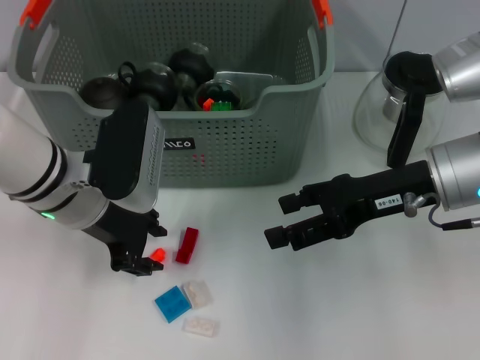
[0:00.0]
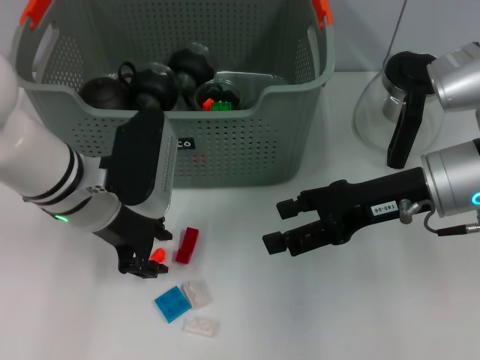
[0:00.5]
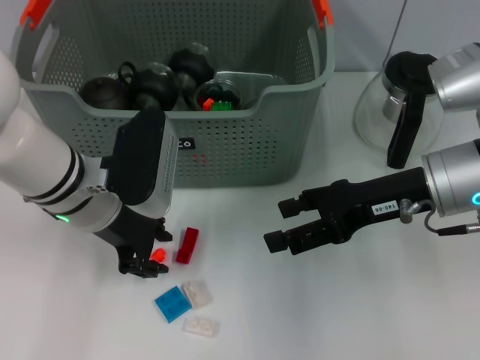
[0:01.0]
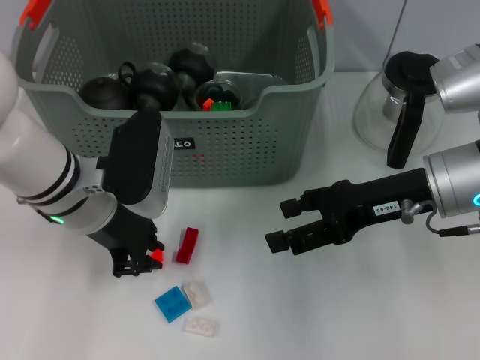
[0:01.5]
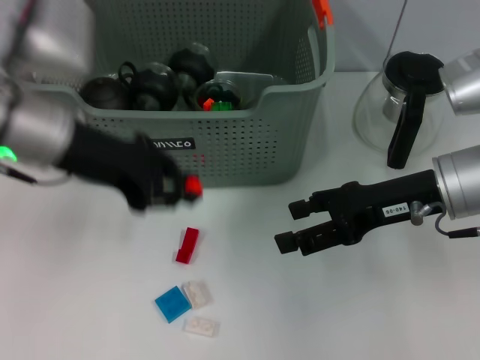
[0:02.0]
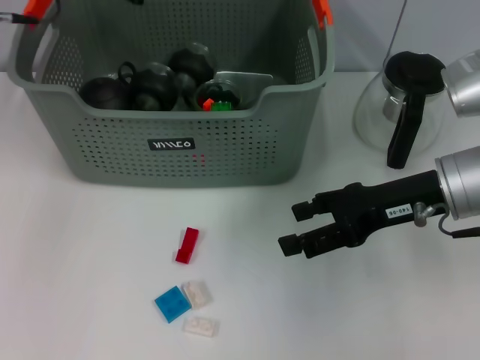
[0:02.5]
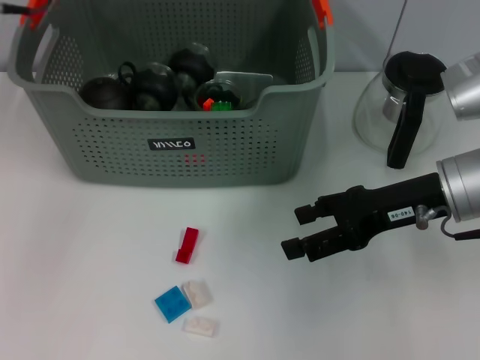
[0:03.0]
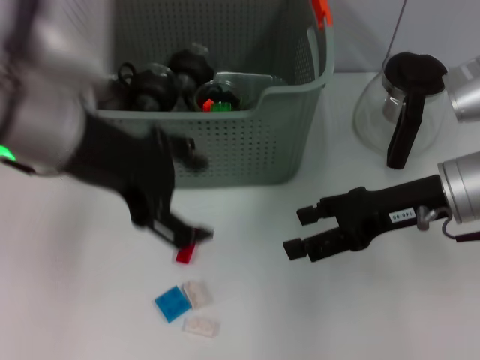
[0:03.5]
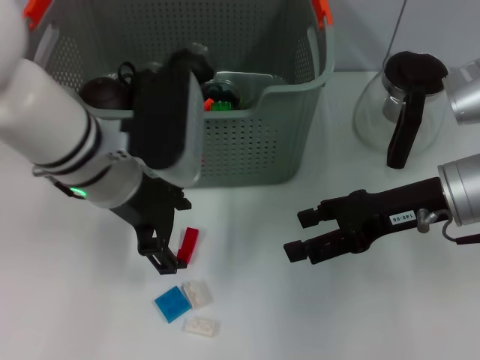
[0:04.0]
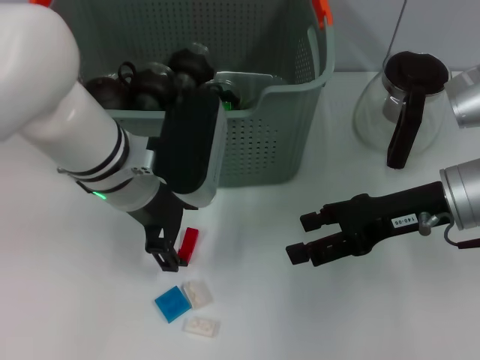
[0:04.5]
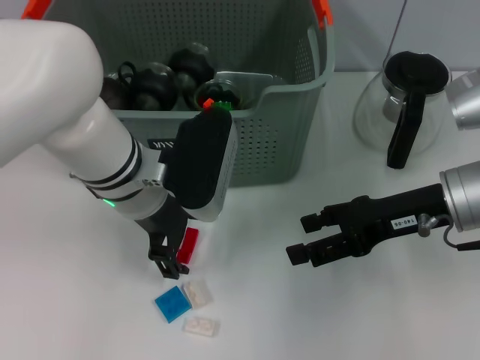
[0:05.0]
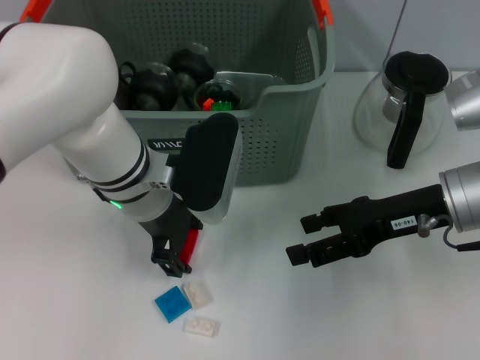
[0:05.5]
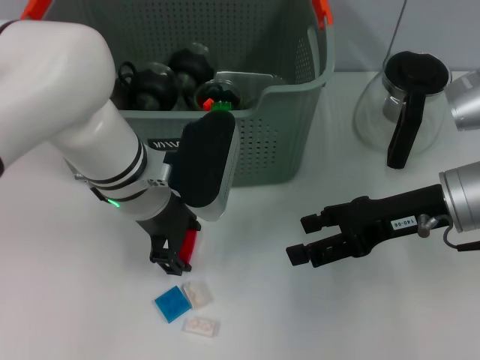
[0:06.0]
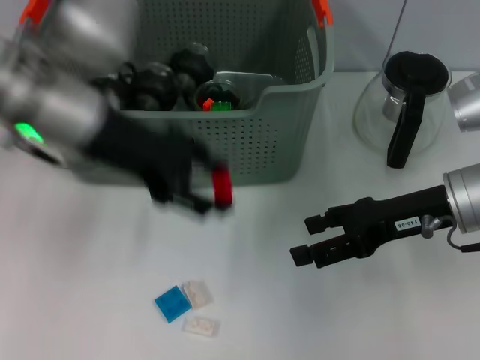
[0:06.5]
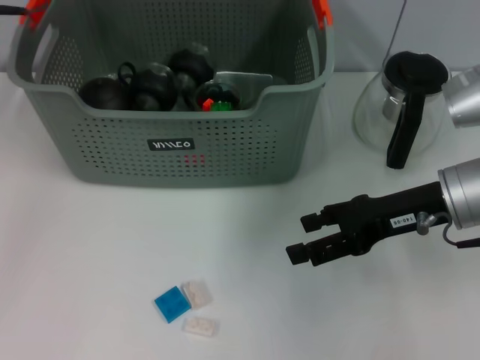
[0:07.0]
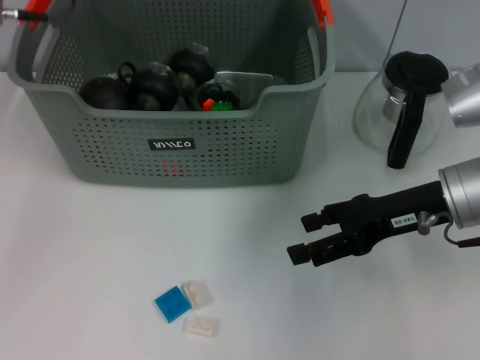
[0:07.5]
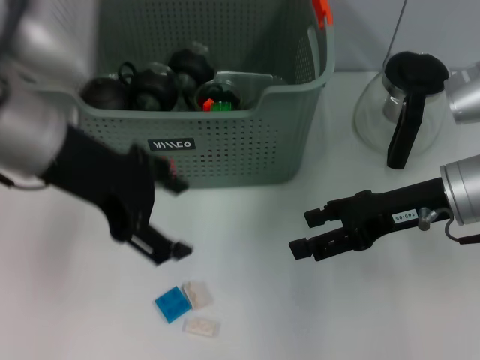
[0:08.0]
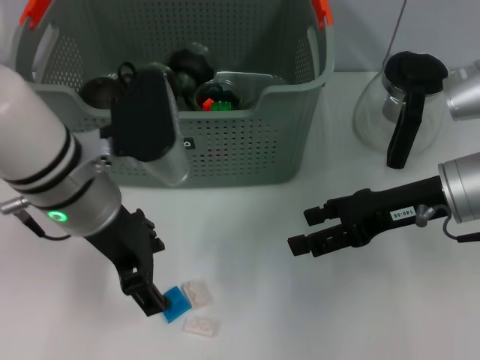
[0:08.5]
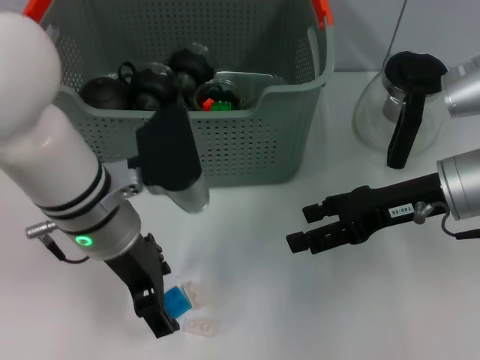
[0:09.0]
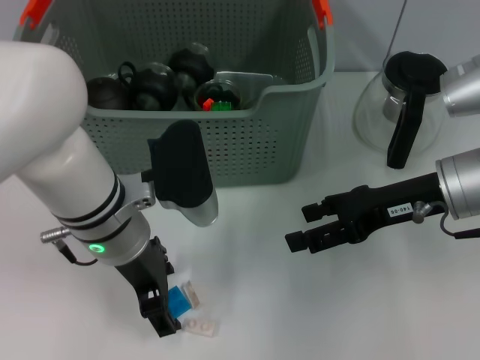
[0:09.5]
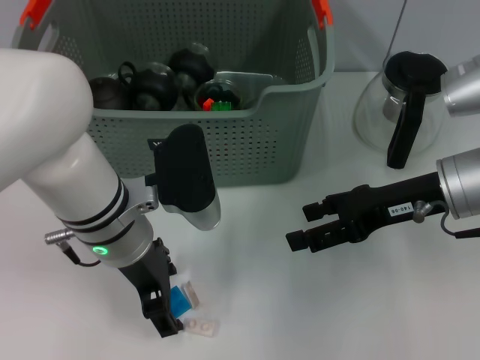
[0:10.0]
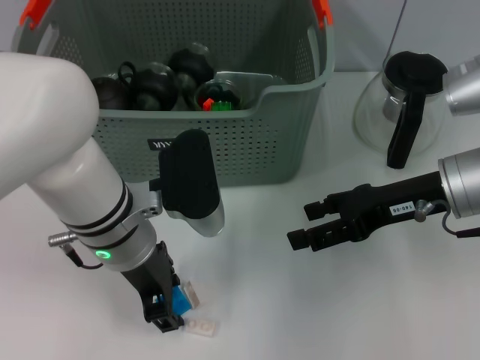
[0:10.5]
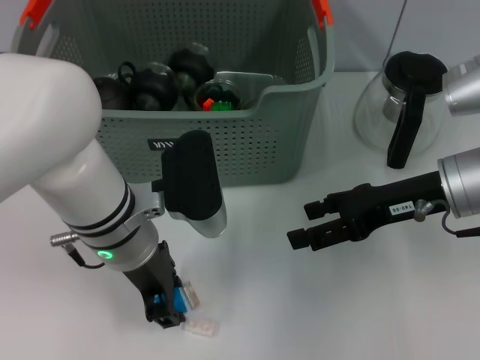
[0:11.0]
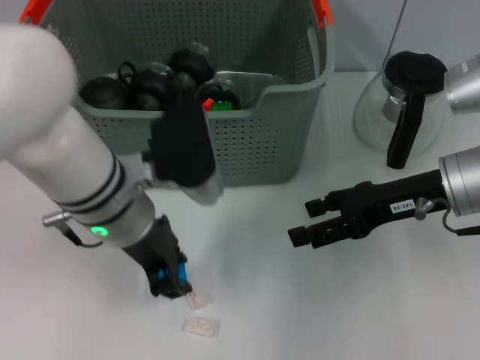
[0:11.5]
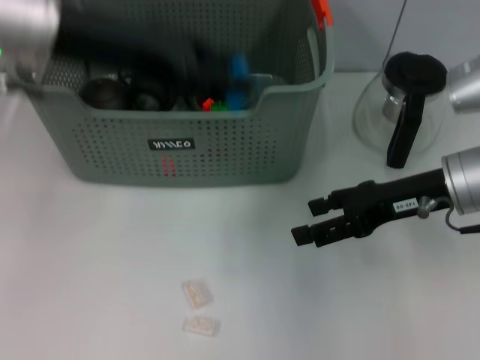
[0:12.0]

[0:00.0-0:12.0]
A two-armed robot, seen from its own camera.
Task of the whole recording: pick up the teacup on the table and place it into the storage bin, pick up the block on the table and place it into the storage bin.
Step, 0:02.0 to 0:02.5: Place the orange block in the storage box with left gripper.
Step, 0:03.0 to 0:05.5: Grasp the red block with left gripper.
Step, 0:06.0 to 0:07.0: Place the red block in the storage box with left gripper.
Step, 0:07.5 to 0:11.0: Grasp the dark blue block with left gripper.
0:00.0 to 0:02.0: The left gripper goes some 5 cm upward, and closes.
0:02.0 to 0:04.0: The left gripper travels to the right by some 5 cm, goes forward and returns, roughly 10 cm each way, and opens its fingers.
0:04.0 to 0:06.0: The left gripper moves roughly 5 cm.
0:06.0 to 0:08.0: The left gripper shifts approximately 15 cm upward and to the left.
0:08.0 to 0:10.0: The left gripper is displaced downward and to the right by approximately 15 cm.
0:10.0 to 0:12.0: The left gripper moves upward, some 15 cm, and closes its fingers.

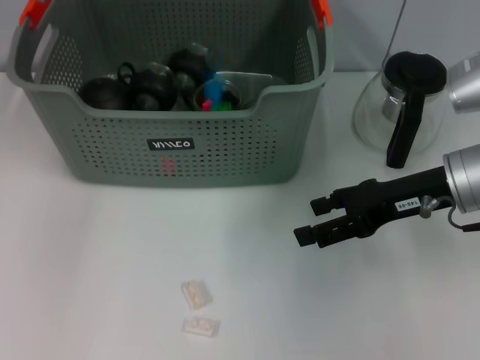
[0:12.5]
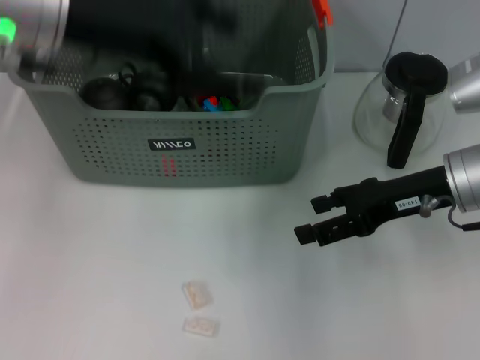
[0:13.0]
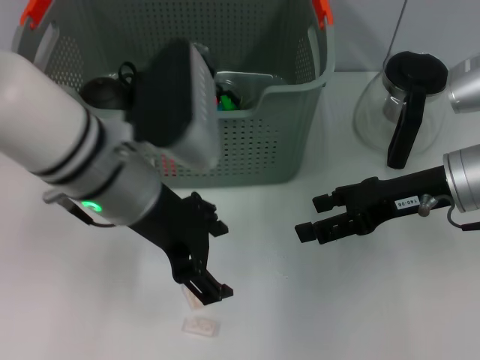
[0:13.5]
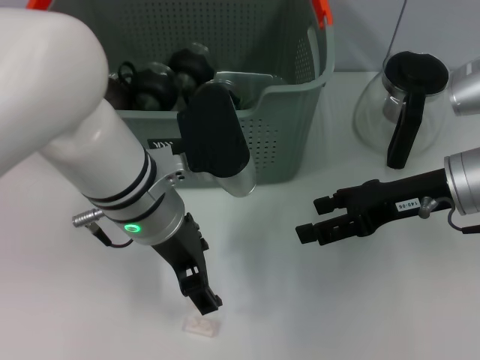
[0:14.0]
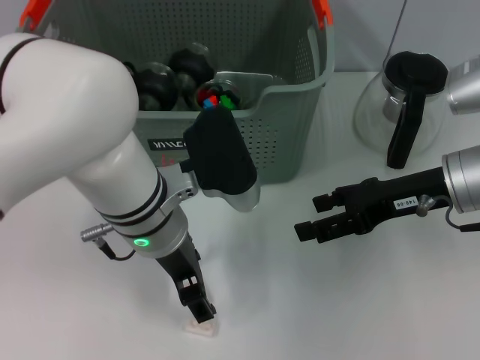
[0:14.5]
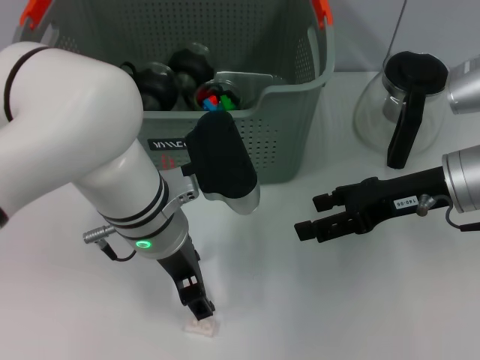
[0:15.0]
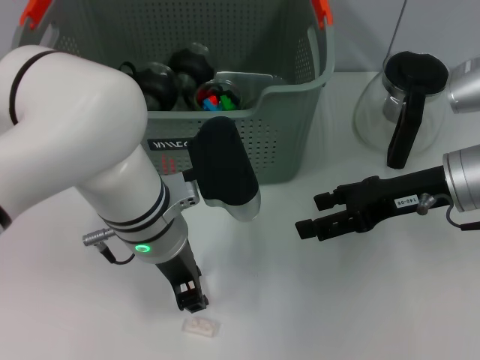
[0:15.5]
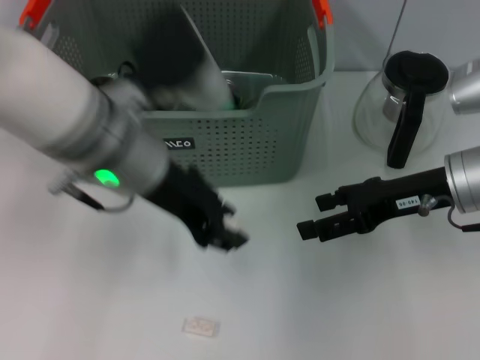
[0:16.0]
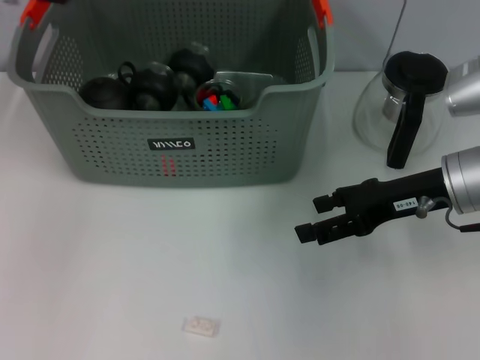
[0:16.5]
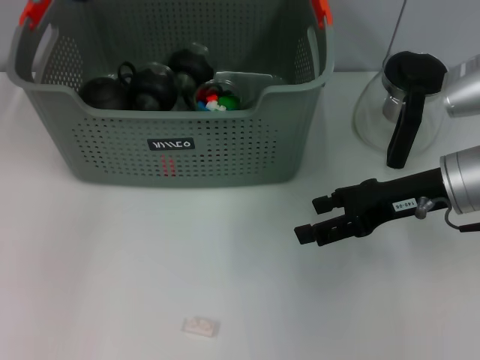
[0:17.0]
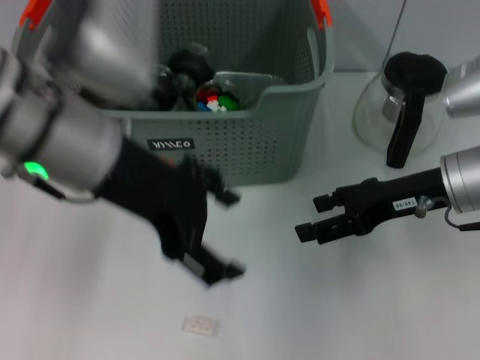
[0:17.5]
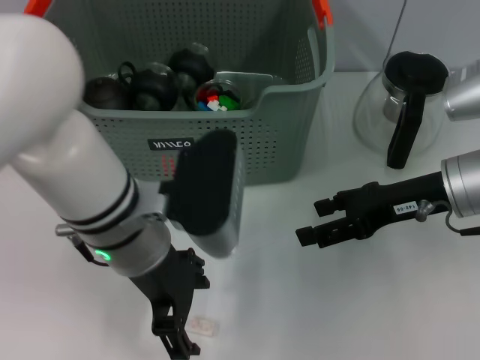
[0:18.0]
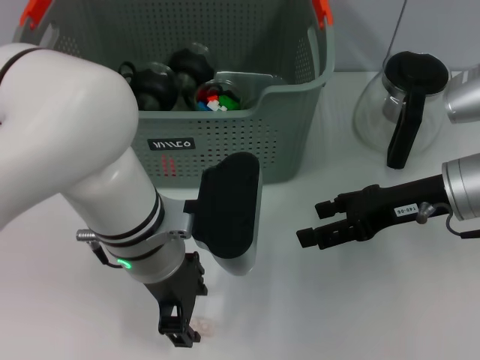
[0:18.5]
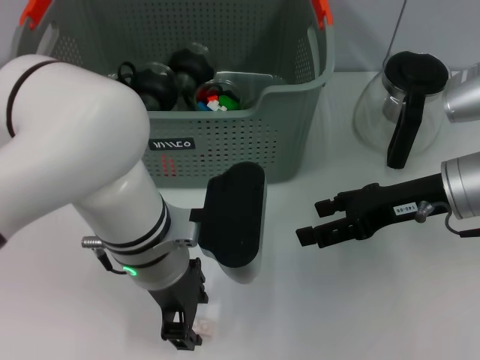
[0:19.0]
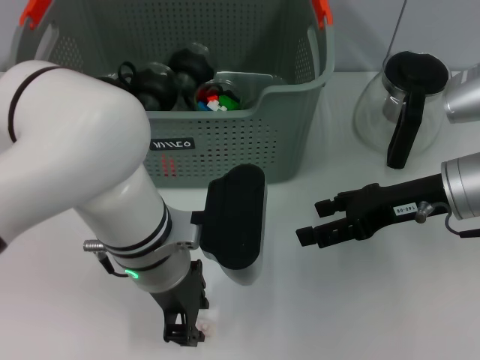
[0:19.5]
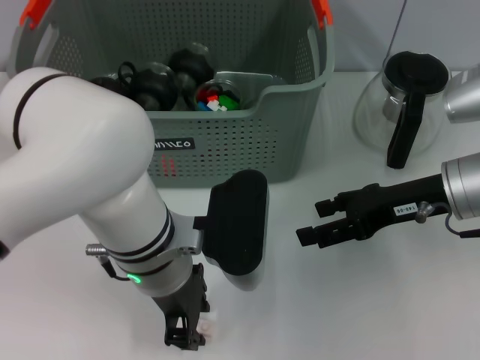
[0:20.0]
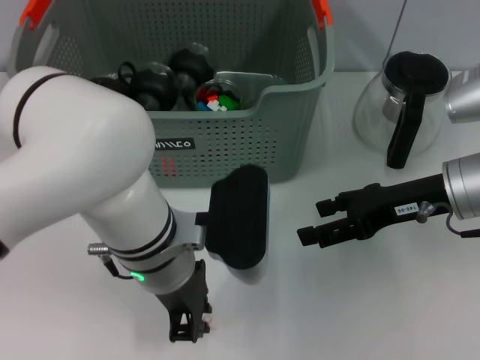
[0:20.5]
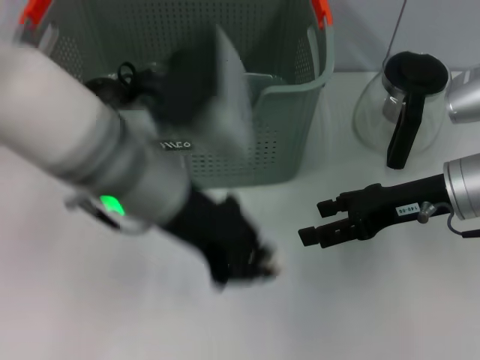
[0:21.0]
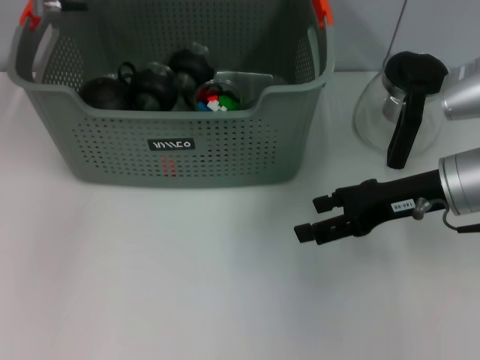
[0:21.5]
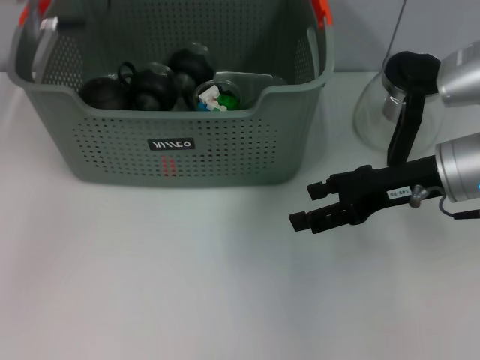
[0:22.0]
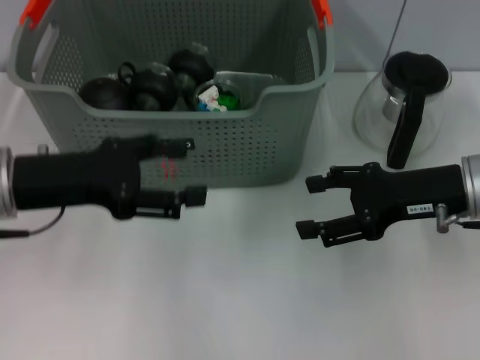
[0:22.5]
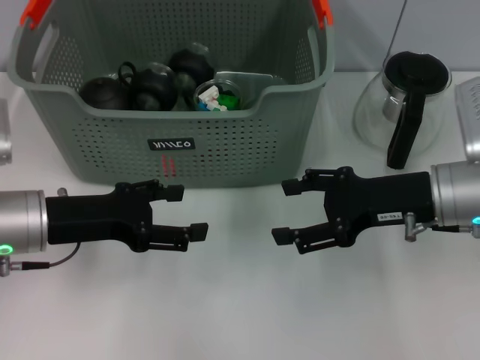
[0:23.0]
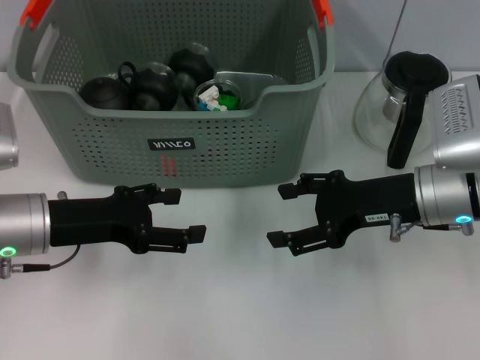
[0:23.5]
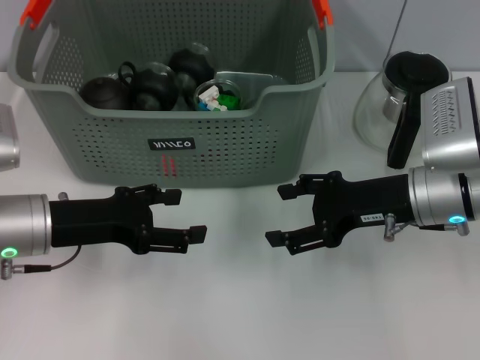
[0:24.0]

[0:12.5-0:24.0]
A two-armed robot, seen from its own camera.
Task of the whole recording: pick up the teacup on the table and place it into the storage bin, pick up the block on the table and place it into the storage bin.
Step, 0:13.0 to 0:15.5: Grasp the white block with left gripper.
Step, 0:16.0 to 0:16.5: Place the white block in the storage box with left gripper.
Step, 0:17.5 to 0:20.0: Grasp the white block with left gripper.
Step, 0:20.5 to 0:21.5: Place the white block in the storage box with left gripper.
0:12.5 to 0:14.5: The left gripper goes about 20 cm downward, backward and to the right, and opens its fingers.
0:14.5 to 0:16.5: The left gripper shifts some 20 cm upward, forward and to the left, and closes its fingers.
0:16.5 to 0:18.5: The left gripper heads downward, backward and to the right, covering some 25 cm, and opens.
0:18.5 to 0:20.0: The left gripper closes its fingers.
0:20.0 to 0:22.0: The left gripper shifts some 20 cm upward, forward and to the left.
0:22.0 to 0:24.0: The left gripper travels downward and backward by roughly 20 cm, and opens its fingers.
